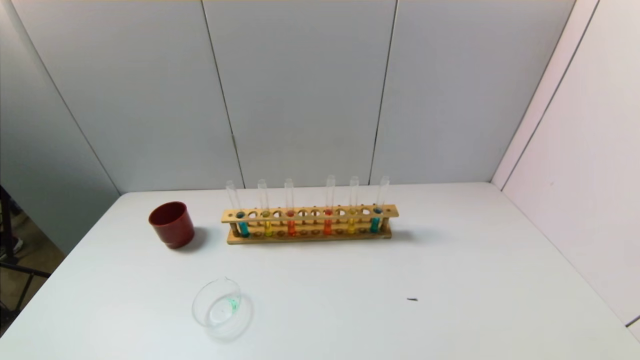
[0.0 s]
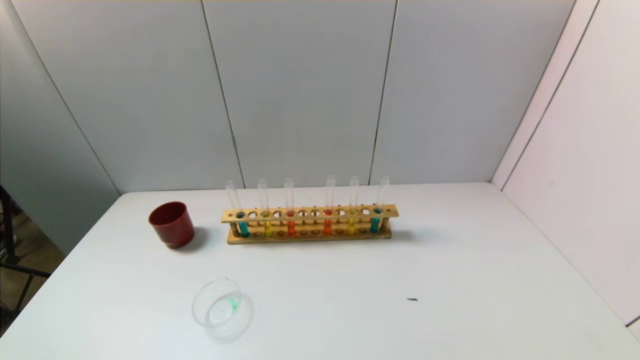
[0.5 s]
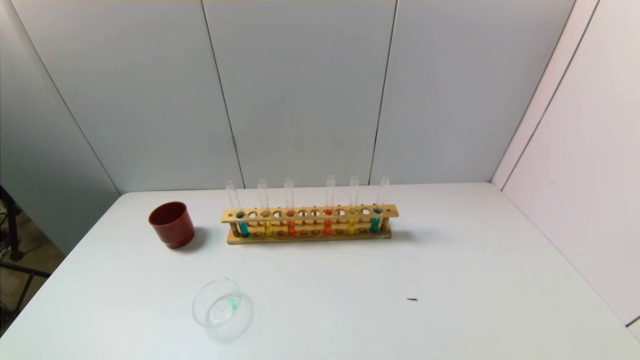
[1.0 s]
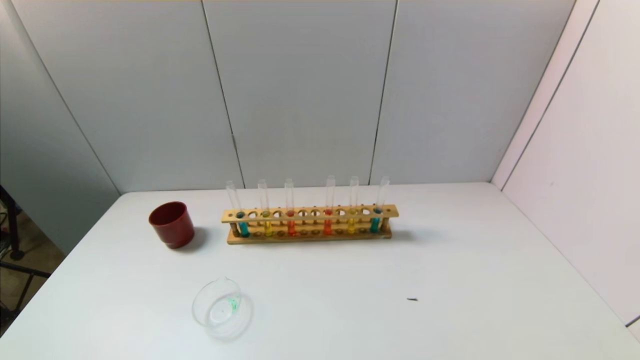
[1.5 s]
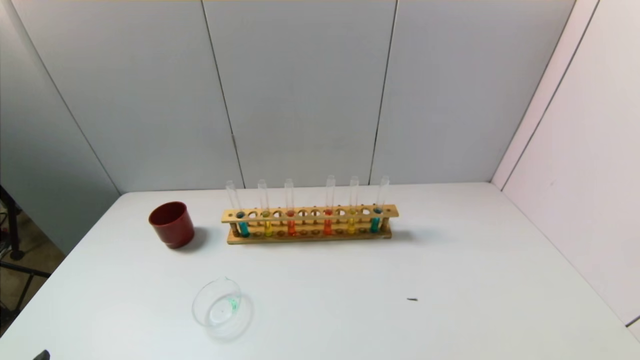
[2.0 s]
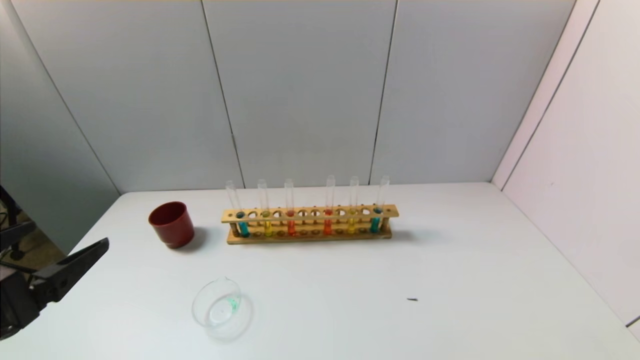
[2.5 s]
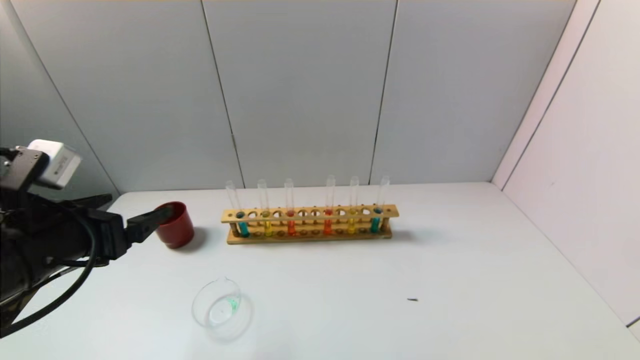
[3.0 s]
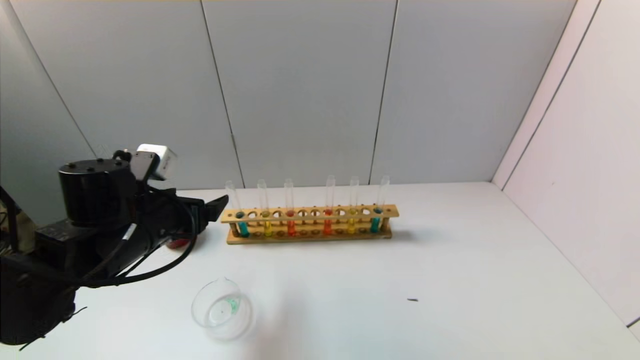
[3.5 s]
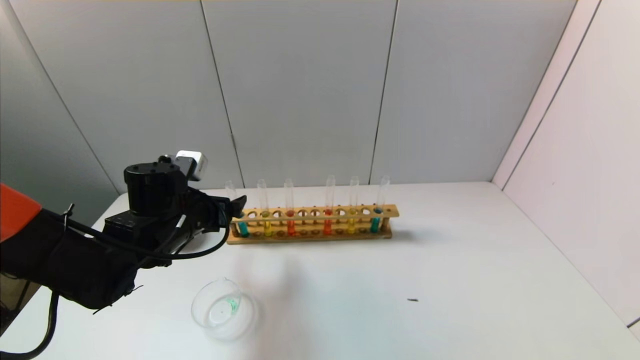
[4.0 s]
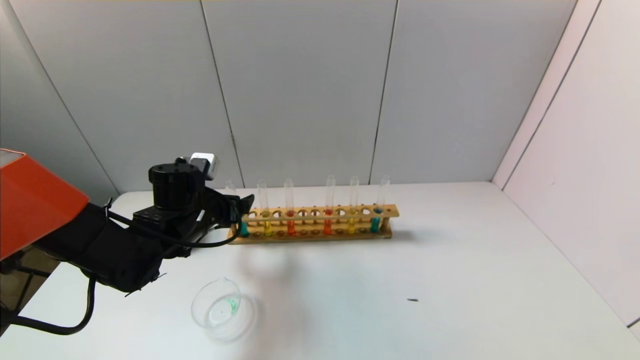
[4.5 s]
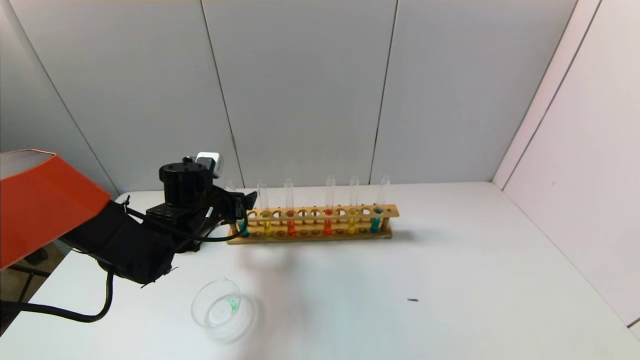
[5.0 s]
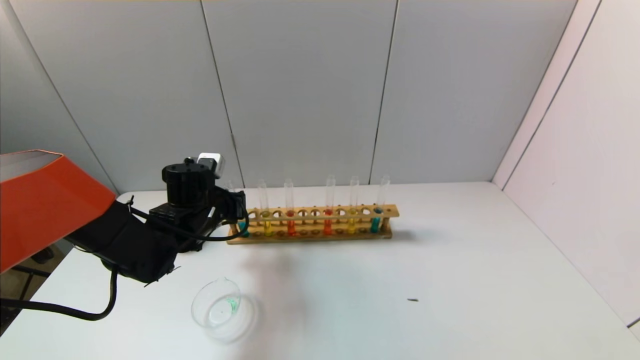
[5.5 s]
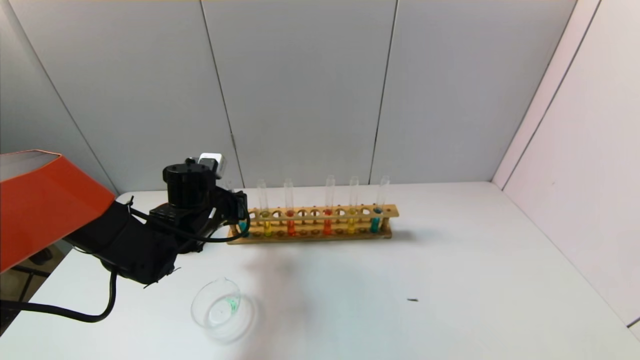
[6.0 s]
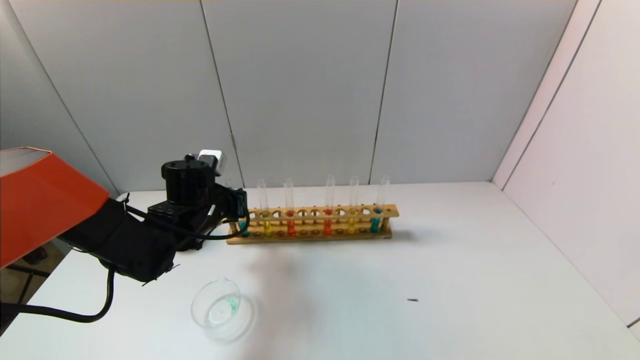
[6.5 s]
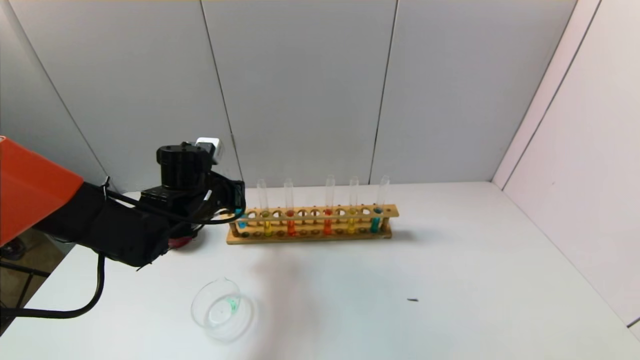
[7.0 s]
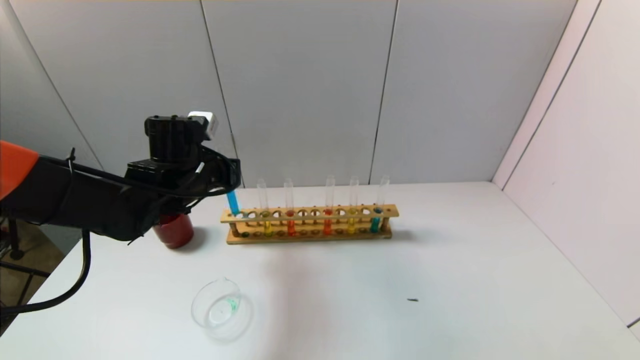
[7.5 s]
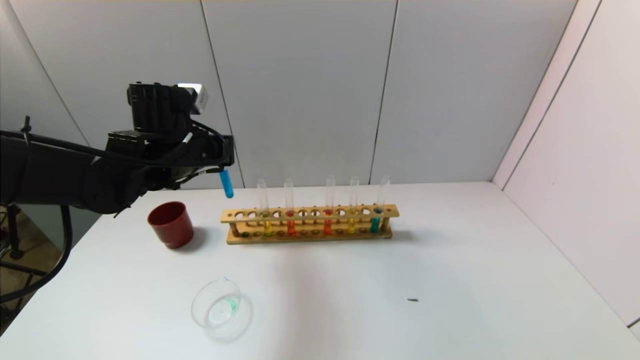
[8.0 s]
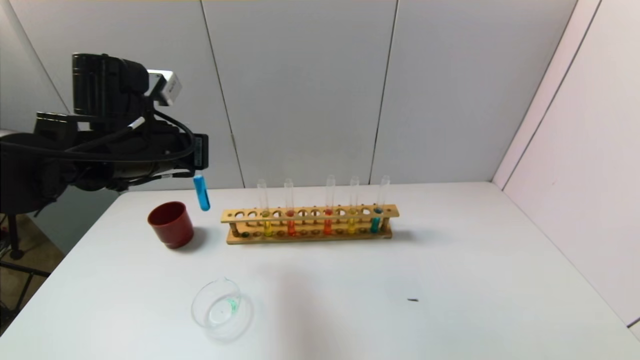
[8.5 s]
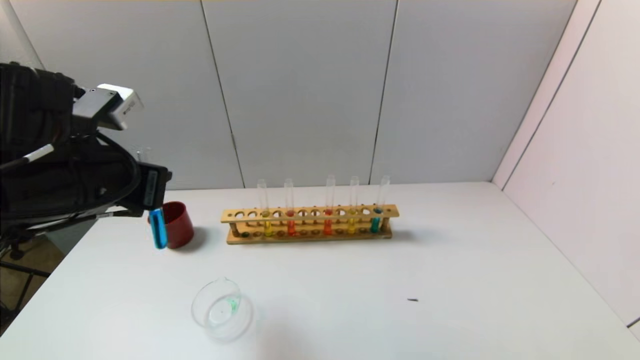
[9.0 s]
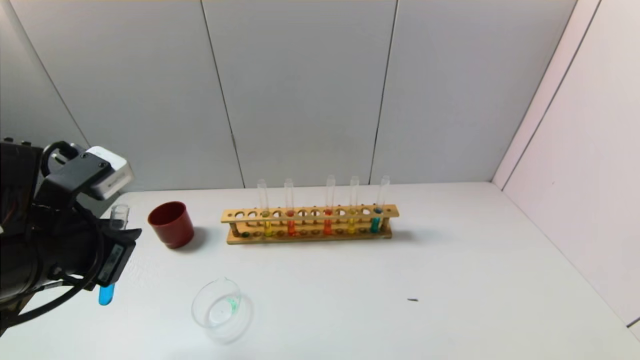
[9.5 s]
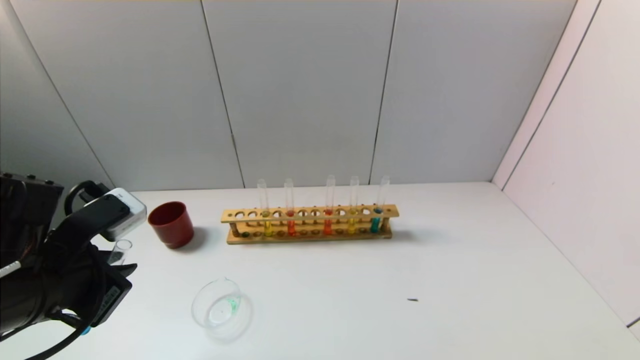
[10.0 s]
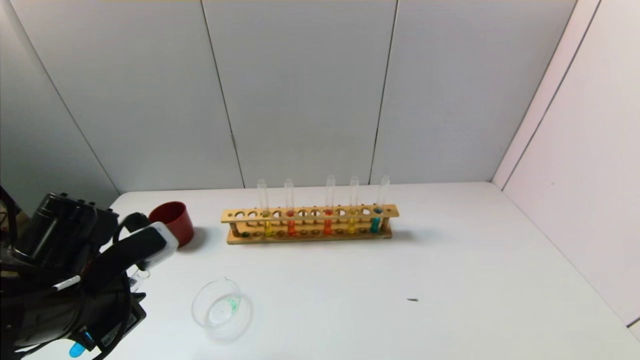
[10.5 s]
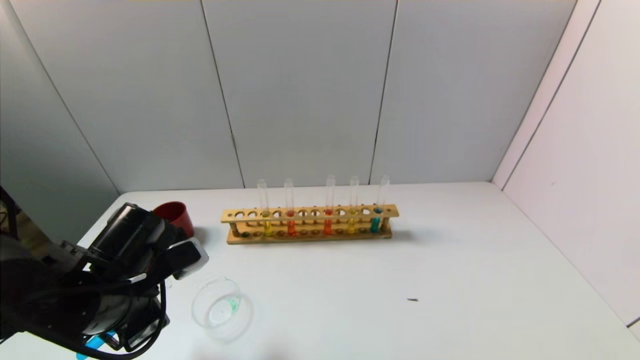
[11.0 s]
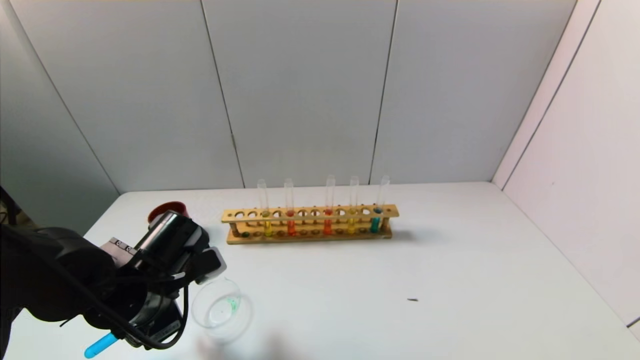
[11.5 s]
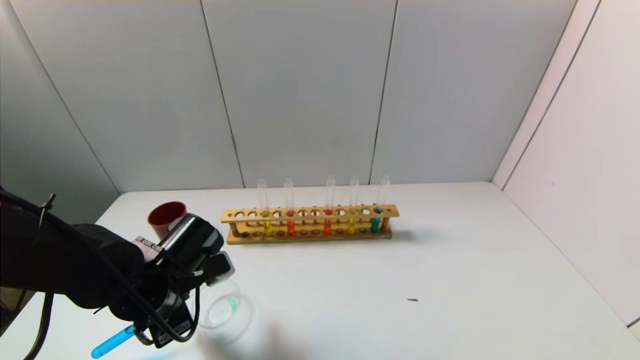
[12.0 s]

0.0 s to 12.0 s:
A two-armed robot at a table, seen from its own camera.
Task of the whole recording: pick up the test tube with yellow pigment and the test tube with blue pigment by grippers and pour them into the beaker.
Step, 0.0 to 5.5 s: Grasp the blue reagent with the left gripper.
2.0 to 4.0 s: The left gripper goes roughly 30 cm forward.
4.0 to 6.0 s: The left gripper ends up some 5 cm from where it was, and closes.
6.0 to 8.0 s: The left gripper is displaced upward by some 10 cm.
8.0 to 10.0 s: The left gripper shifts approximately 20 cm backward.
10.0 to 12.0 s: The left gripper goes roughly 15 cm downward, forward and to the right.

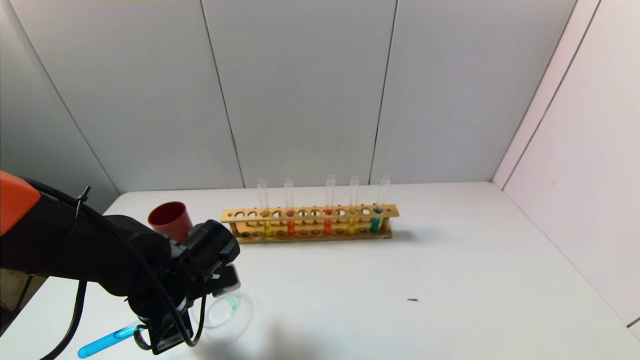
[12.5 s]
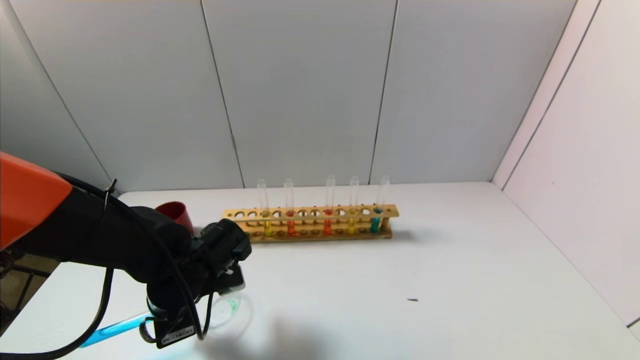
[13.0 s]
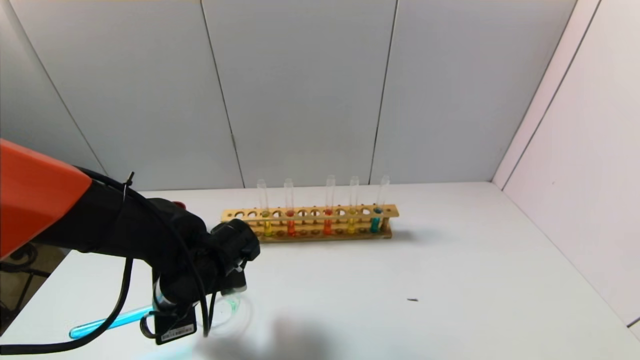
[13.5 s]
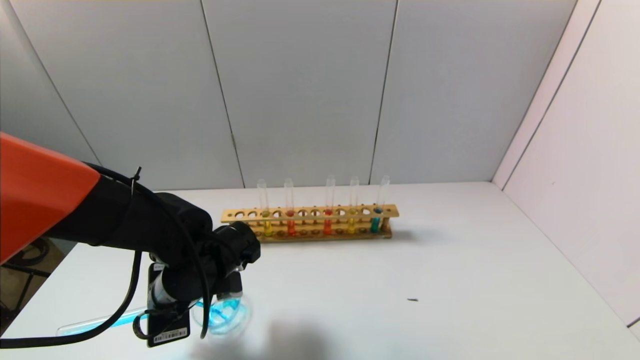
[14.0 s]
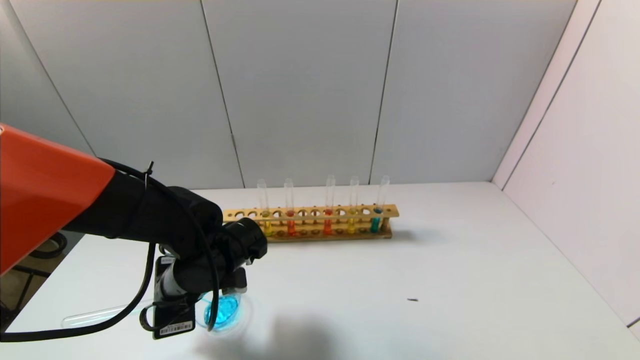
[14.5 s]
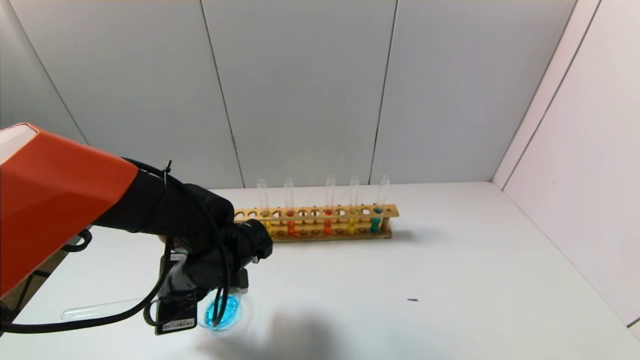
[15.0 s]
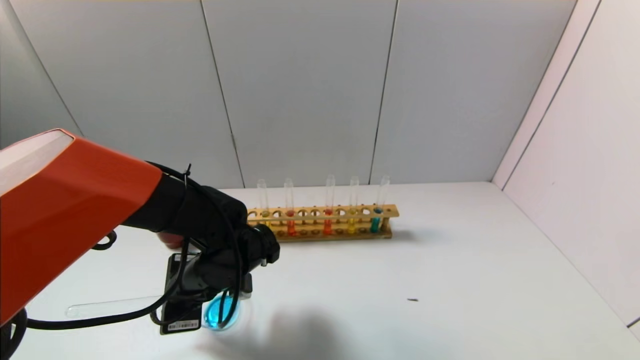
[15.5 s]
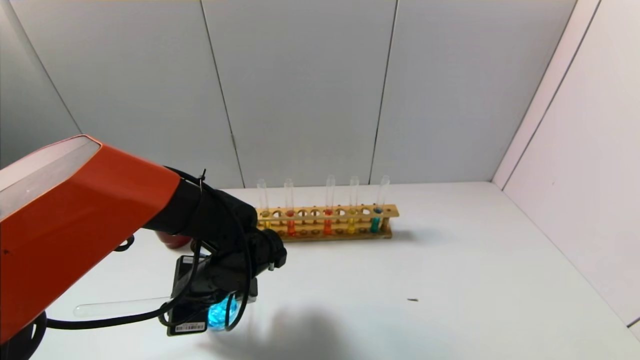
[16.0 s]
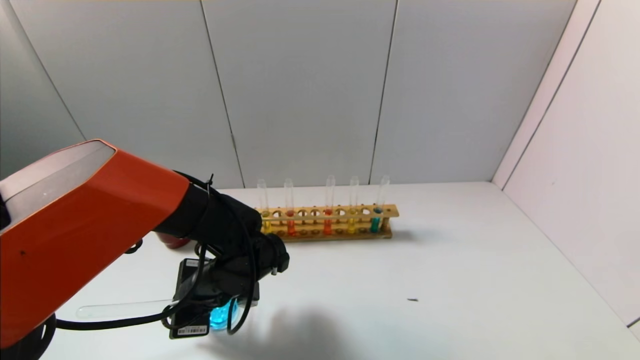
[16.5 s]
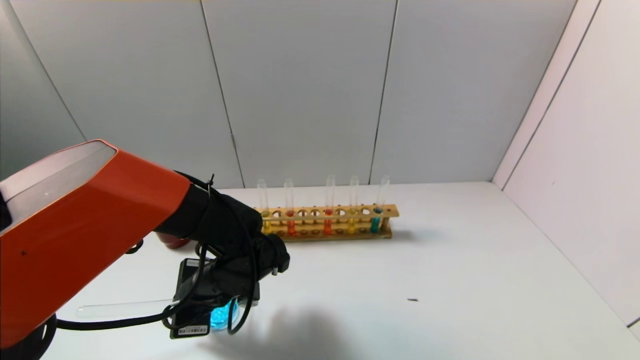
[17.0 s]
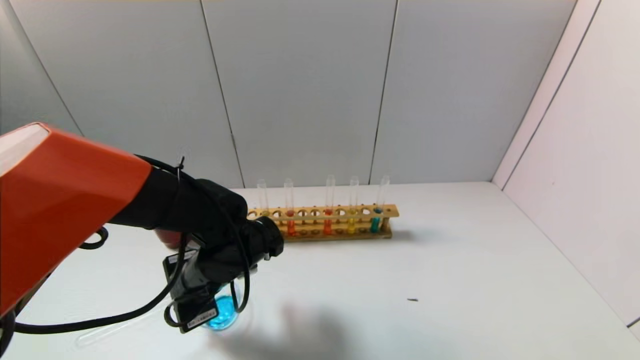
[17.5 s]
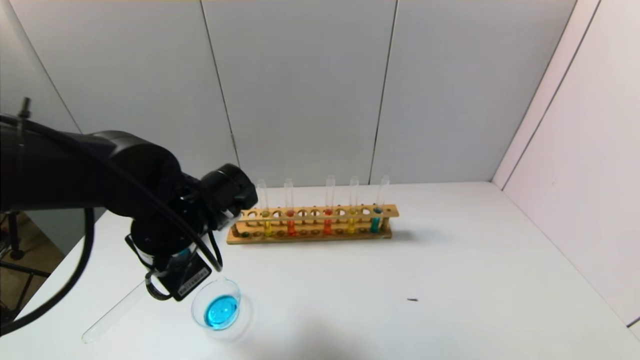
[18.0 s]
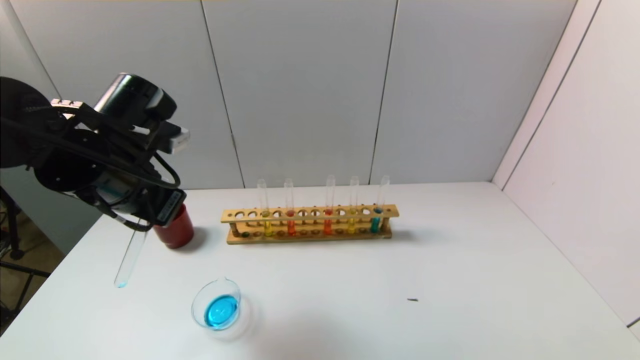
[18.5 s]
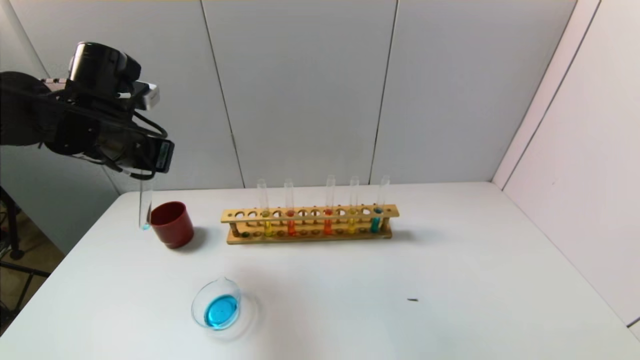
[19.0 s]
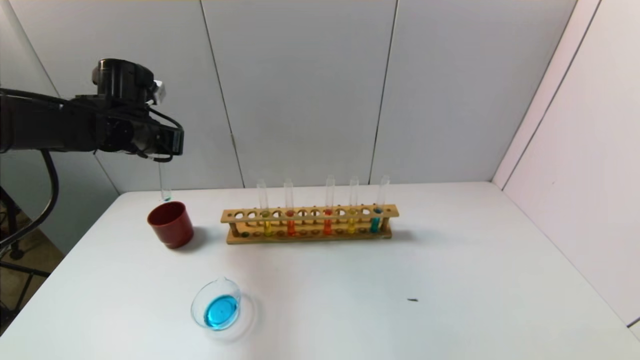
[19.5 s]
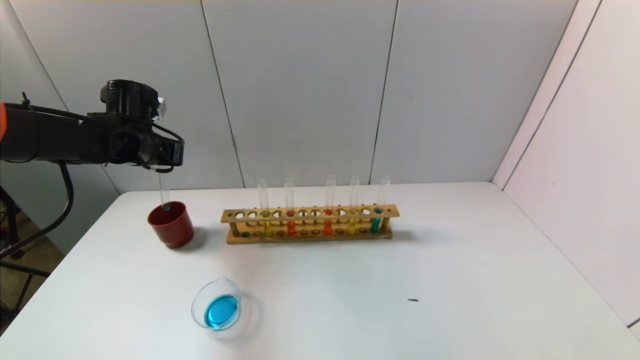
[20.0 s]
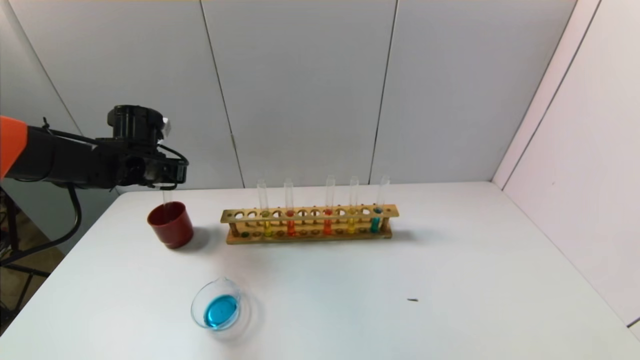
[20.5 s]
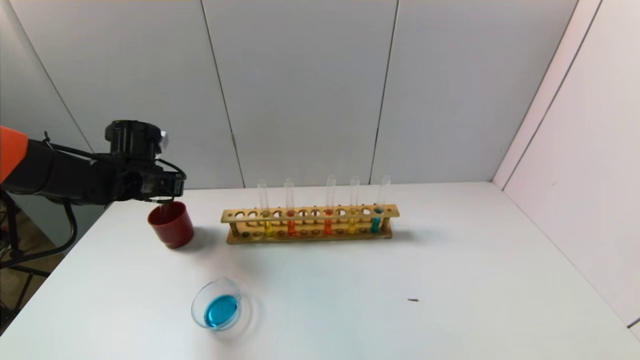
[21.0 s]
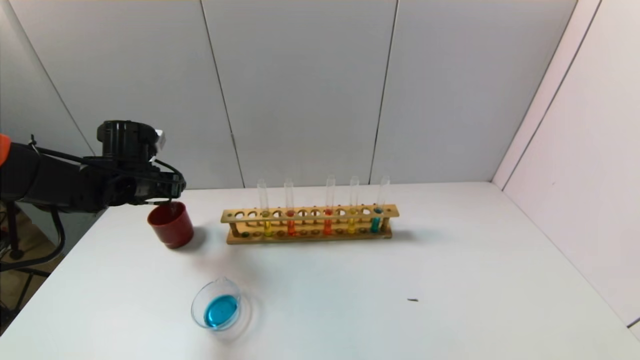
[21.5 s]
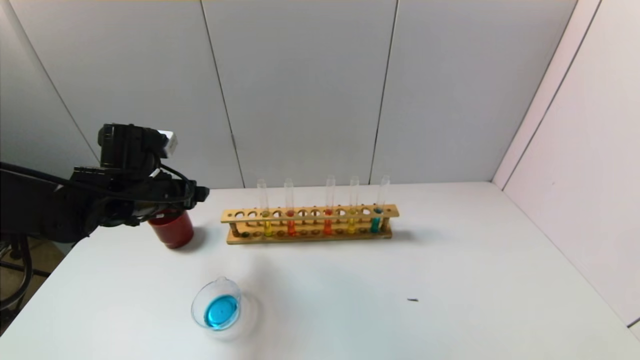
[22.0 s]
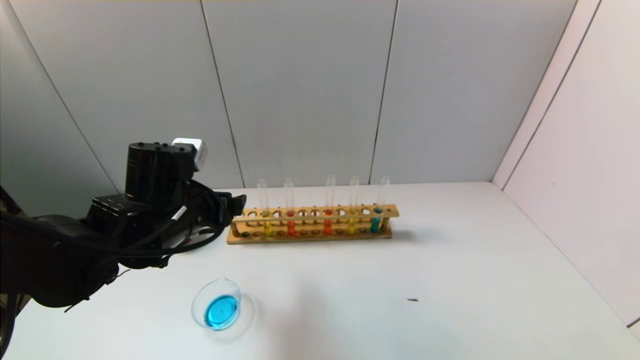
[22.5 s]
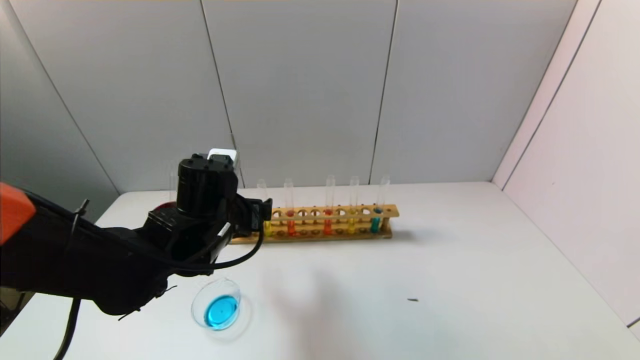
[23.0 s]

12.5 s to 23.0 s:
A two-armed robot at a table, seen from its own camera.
Task of the whole recording: pick up the test tube with yellow pigment and the test tube with blue pigment by grippers and pour them into the beaker.
Step, 12.5 to 16.0 s: Pour the blue reagent into the graduated cylinder with the left gripper.
Step, 16.5 to 21.5 s: Place the test tube into the brown cup with the left gripper.
12.5 to 14.5 s: The grippers make only small movements.
14.5 to 16.5 s: The grippers stay close to where they were, moving slightly.
16.5 to 19.0 s: The left gripper shifts approximately 25 cm upward and to the left.
19.0 to 21.0 s: The left gripper goes approximately 15 cm downward and forward.
21.0 to 23.0 s: The left gripper travels to the right and backward by roughly 20 cm, and opens up.
